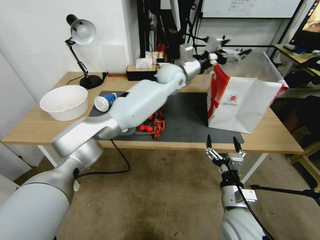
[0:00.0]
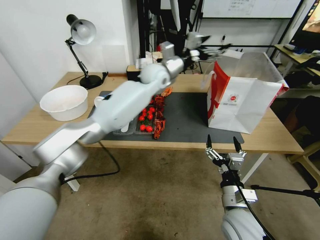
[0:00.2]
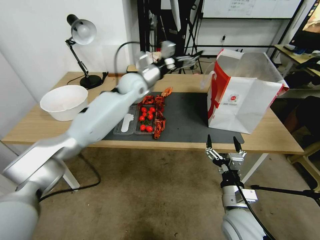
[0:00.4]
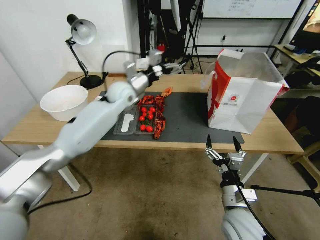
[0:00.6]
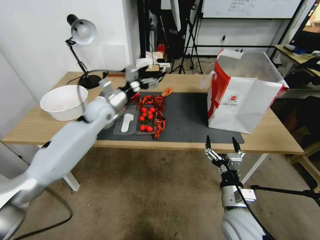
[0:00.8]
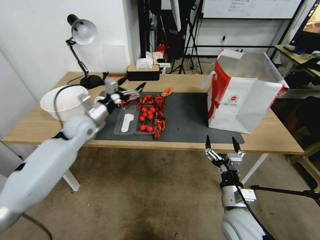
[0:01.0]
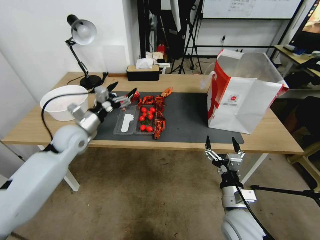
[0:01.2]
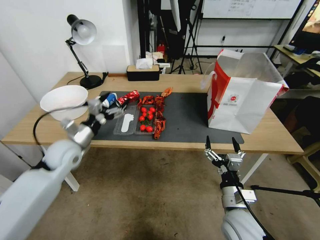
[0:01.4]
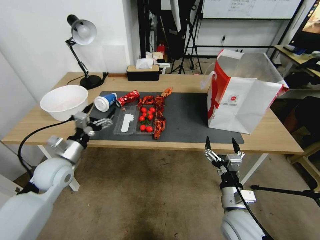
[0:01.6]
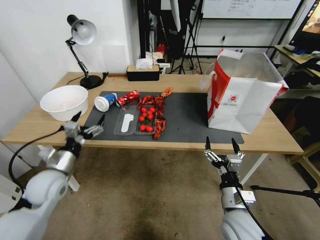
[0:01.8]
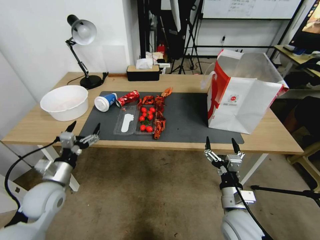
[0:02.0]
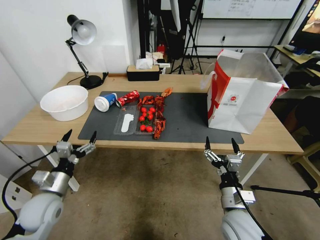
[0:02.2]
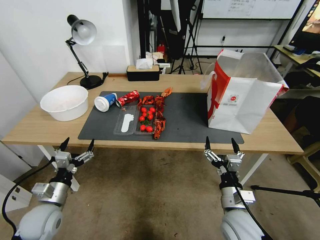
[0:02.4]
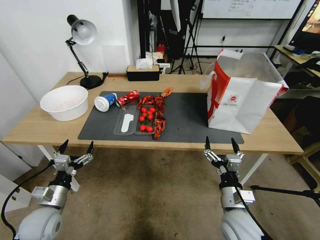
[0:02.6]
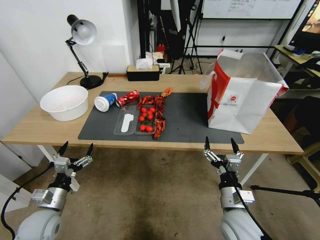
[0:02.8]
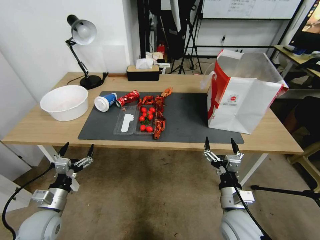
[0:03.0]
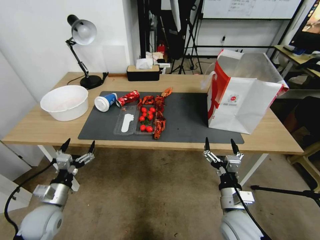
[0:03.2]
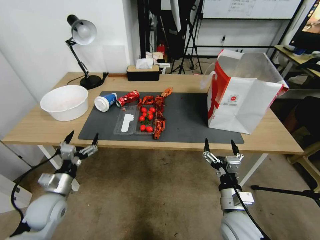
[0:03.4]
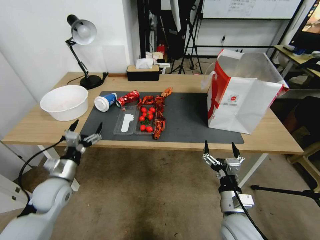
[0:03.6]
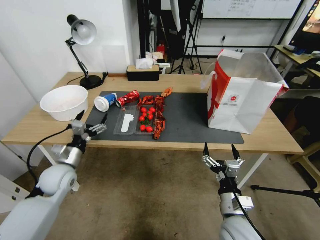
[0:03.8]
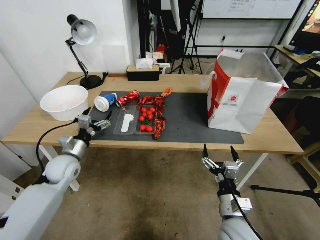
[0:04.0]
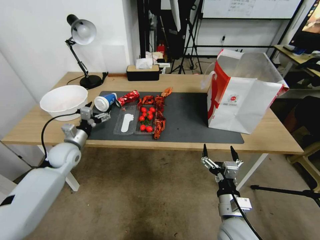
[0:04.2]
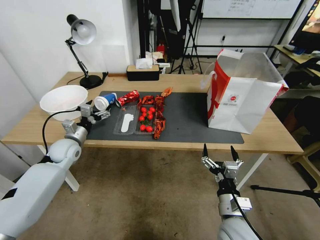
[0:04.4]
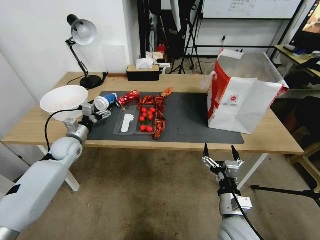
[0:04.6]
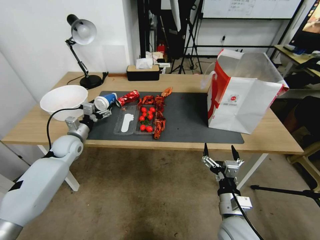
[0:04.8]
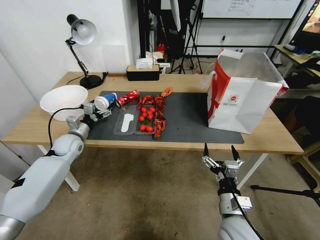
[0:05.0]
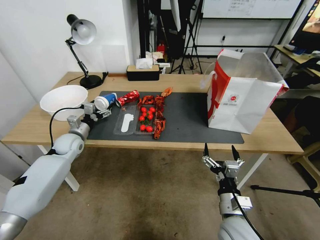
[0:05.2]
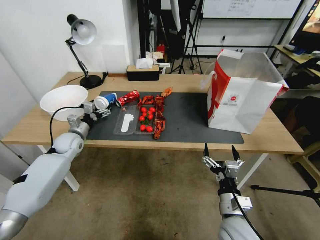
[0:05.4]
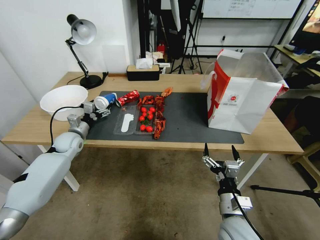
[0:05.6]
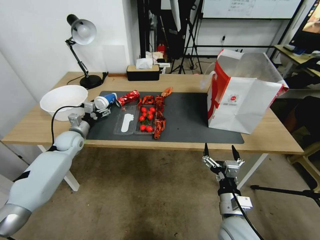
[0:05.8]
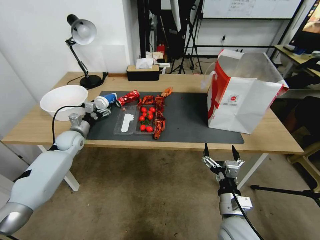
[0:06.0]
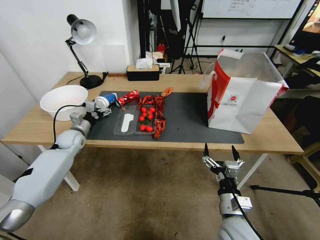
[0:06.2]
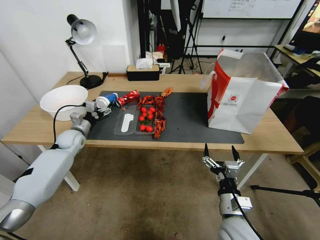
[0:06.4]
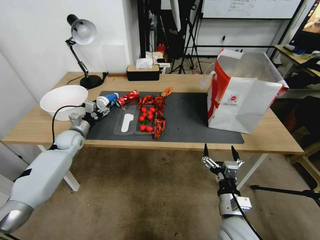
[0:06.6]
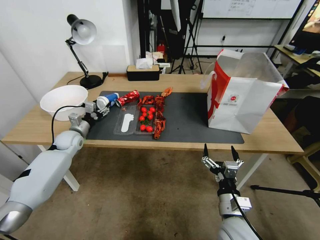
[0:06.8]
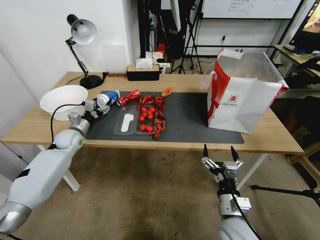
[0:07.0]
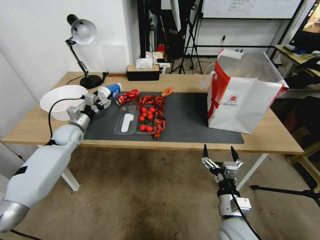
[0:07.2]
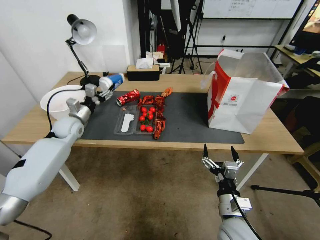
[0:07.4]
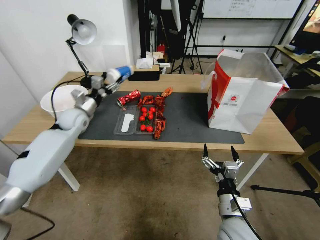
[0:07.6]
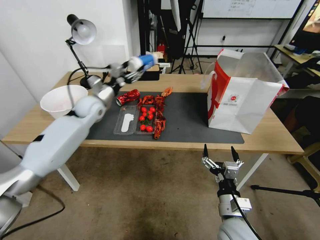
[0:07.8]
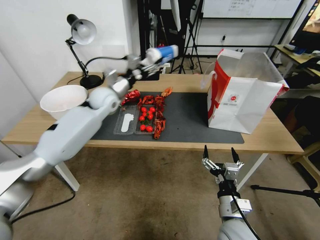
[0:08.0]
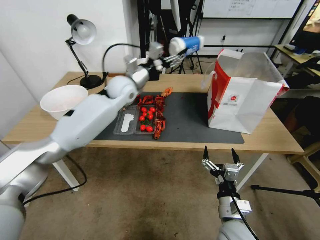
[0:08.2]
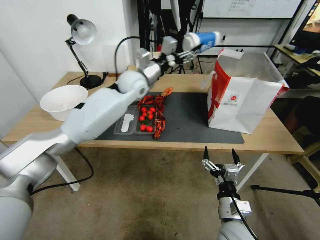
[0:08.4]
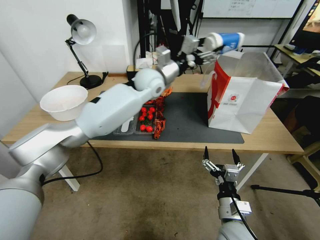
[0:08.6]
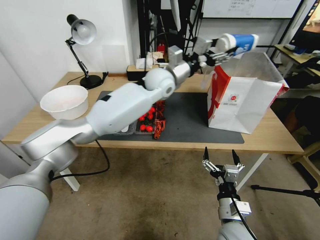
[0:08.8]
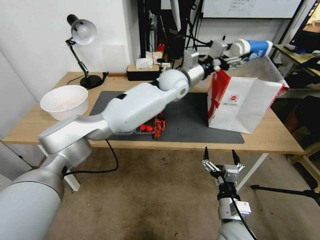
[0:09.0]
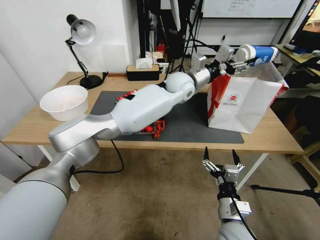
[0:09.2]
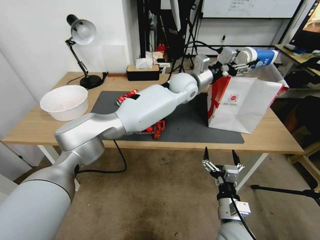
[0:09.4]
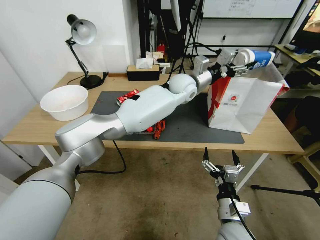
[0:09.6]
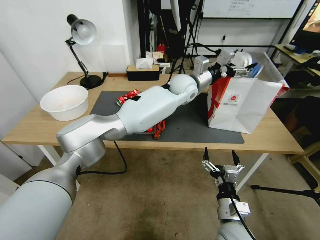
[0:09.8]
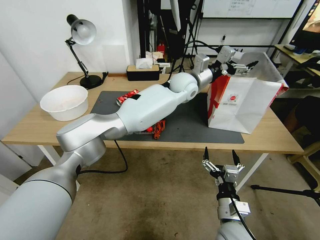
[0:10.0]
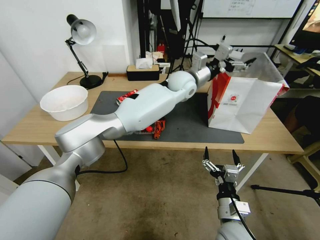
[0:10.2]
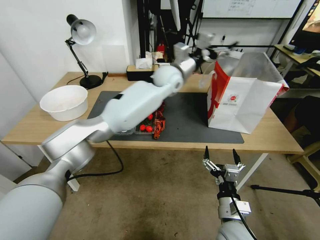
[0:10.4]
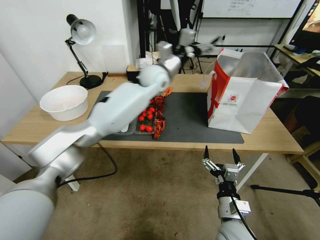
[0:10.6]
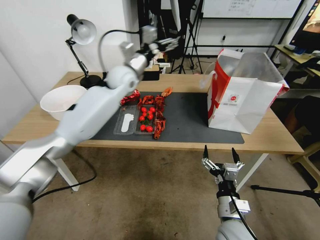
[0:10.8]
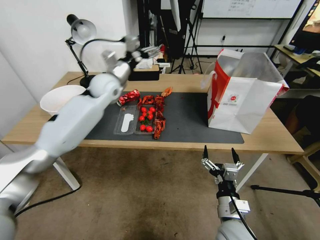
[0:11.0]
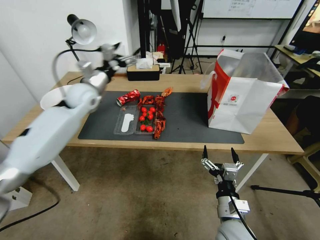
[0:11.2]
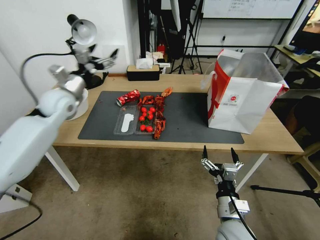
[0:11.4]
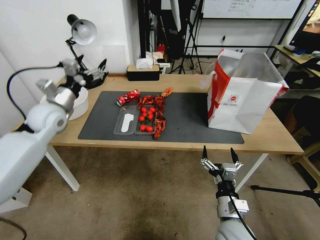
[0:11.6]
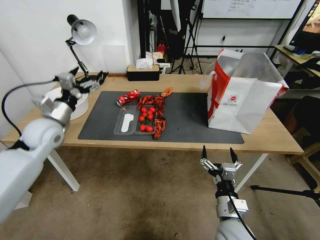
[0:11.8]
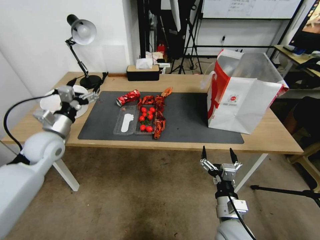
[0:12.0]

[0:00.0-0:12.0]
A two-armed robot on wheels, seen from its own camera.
0:00.0 to 0:01.6: The left gripper shifts about 50 cm to the left, backward and downward.
0:01.6 to 0:03.0: The left gripper moves backward and downward, about 15 cm.
0:03.0 to 0:04.4: The left gripper moves forward, approximately 20 cm.
0:04.4 to 0:06.0: The left gripper heads forward, covering roughly 5 cm.
0:06.0 to 0:07.6: The left gripper moves upward, approximately 5 cm, and closes its fingers.
0:07.6 to 0:09.0: The left gripper travels to the right and upward by roughly 40 cm.
0:09.0 to 0:10.4: The left gripper opens its fingers.
0:10.4 to 0:12.0: The left gripper heads to the left and backward, covering roughly 50 cm.

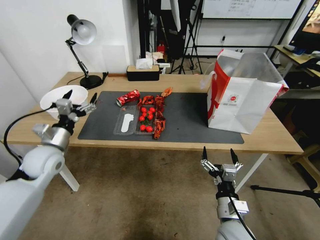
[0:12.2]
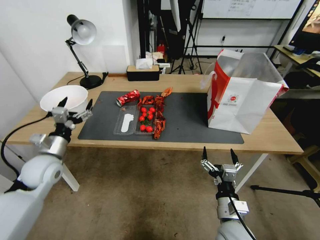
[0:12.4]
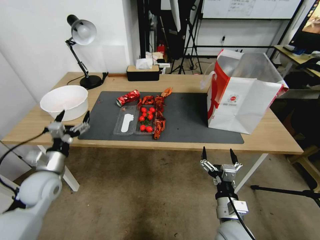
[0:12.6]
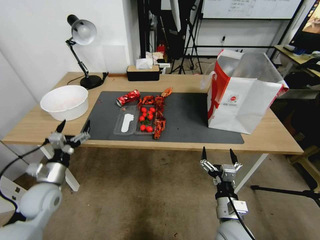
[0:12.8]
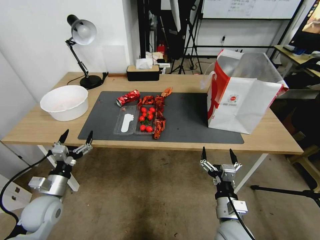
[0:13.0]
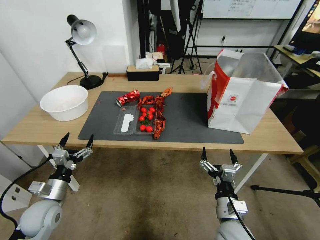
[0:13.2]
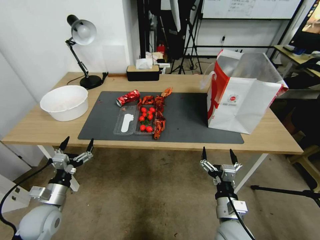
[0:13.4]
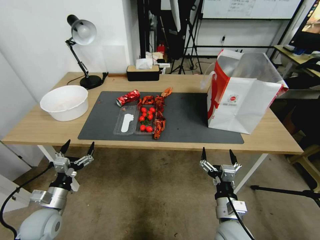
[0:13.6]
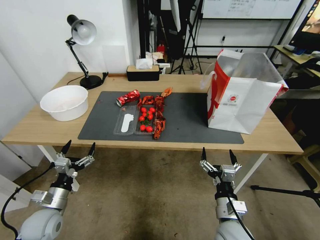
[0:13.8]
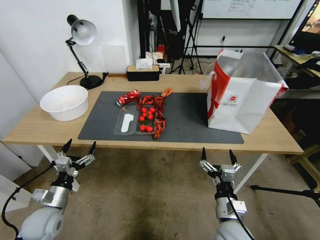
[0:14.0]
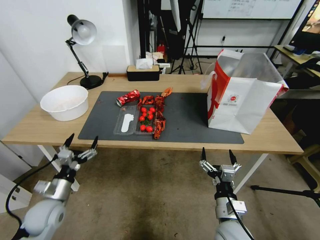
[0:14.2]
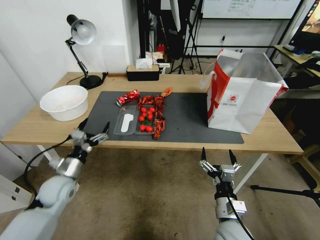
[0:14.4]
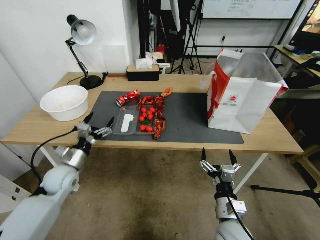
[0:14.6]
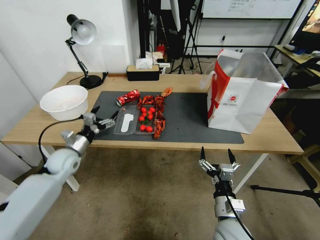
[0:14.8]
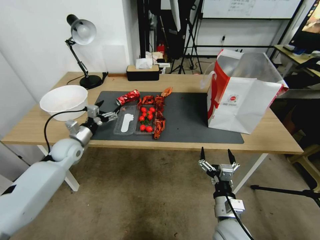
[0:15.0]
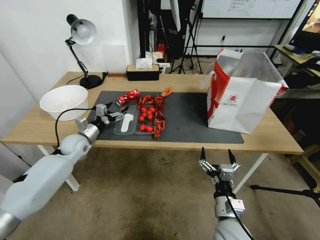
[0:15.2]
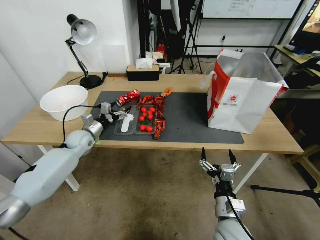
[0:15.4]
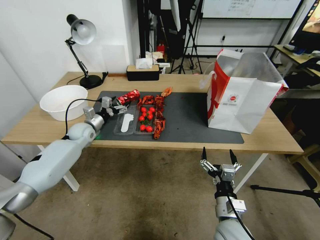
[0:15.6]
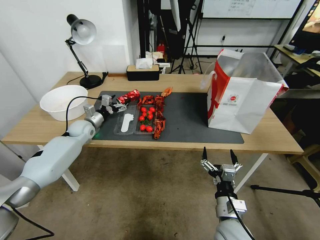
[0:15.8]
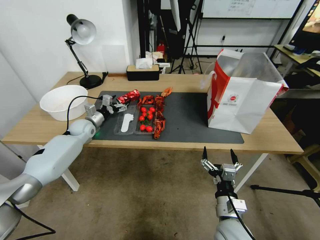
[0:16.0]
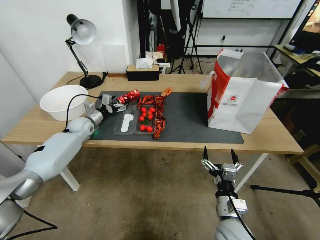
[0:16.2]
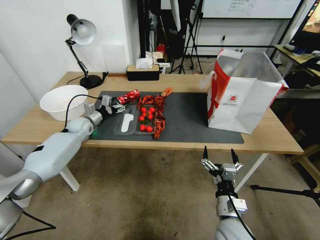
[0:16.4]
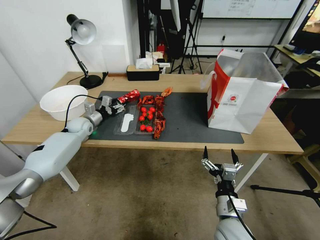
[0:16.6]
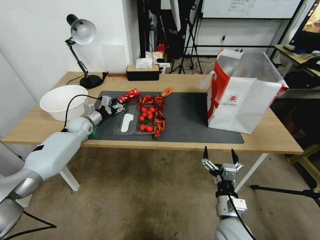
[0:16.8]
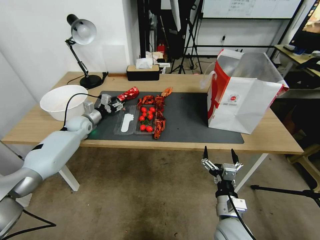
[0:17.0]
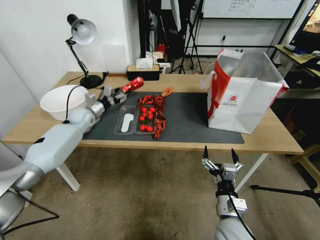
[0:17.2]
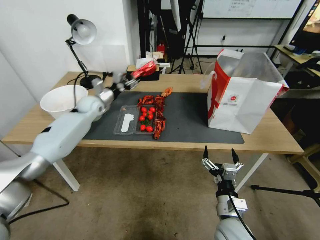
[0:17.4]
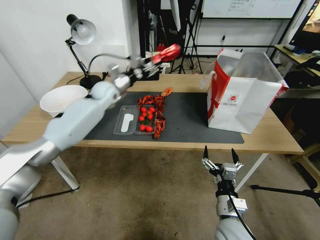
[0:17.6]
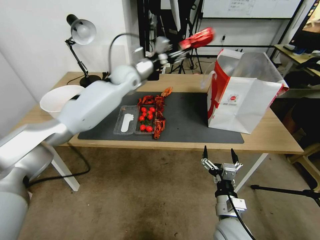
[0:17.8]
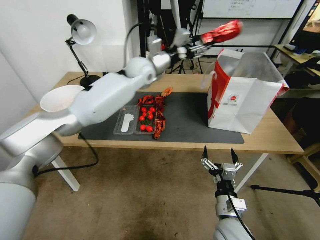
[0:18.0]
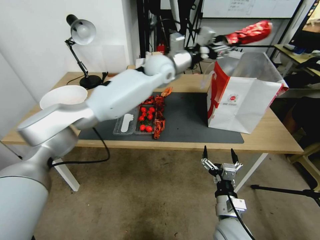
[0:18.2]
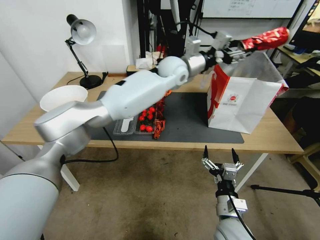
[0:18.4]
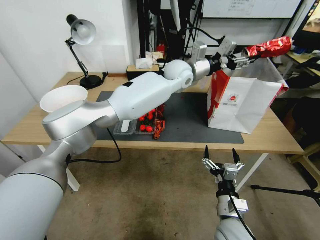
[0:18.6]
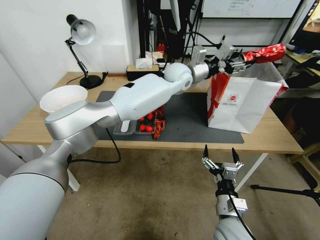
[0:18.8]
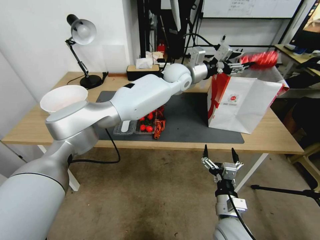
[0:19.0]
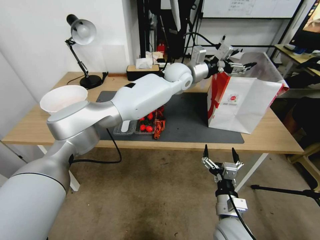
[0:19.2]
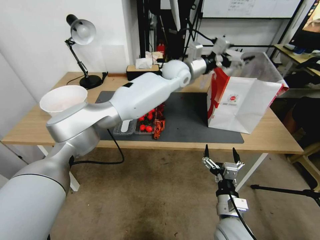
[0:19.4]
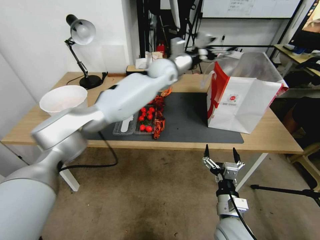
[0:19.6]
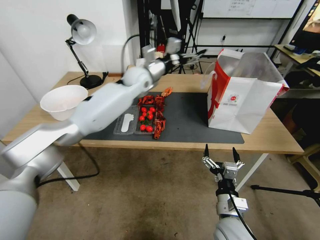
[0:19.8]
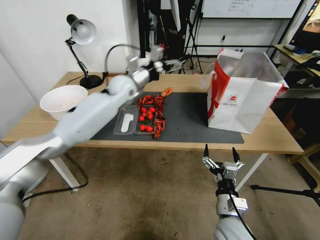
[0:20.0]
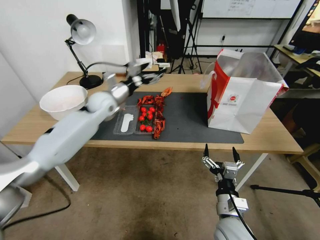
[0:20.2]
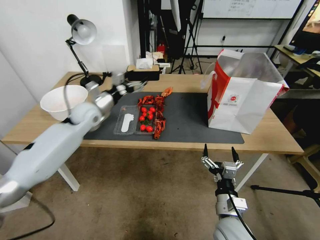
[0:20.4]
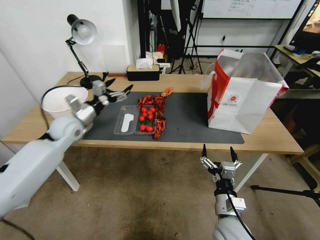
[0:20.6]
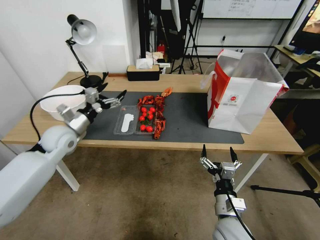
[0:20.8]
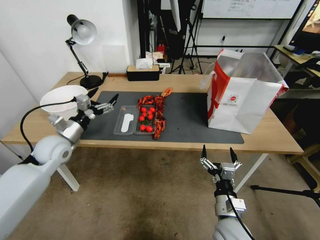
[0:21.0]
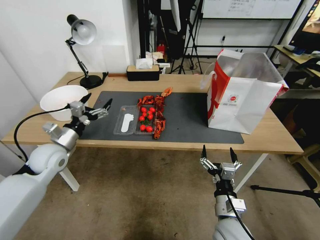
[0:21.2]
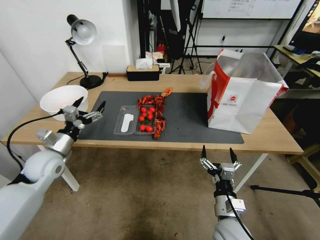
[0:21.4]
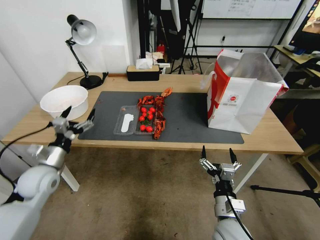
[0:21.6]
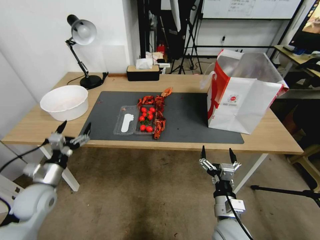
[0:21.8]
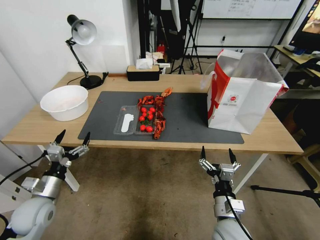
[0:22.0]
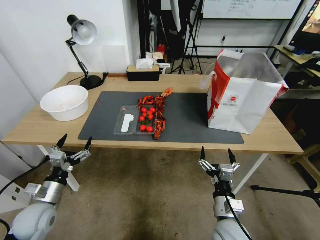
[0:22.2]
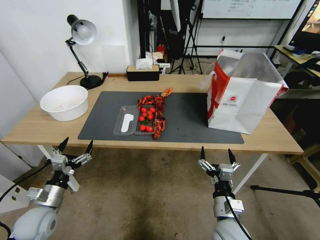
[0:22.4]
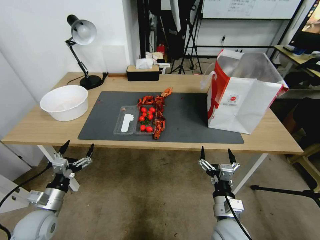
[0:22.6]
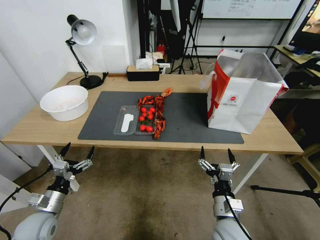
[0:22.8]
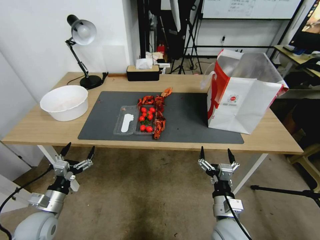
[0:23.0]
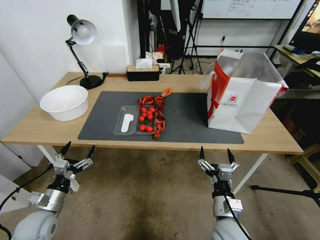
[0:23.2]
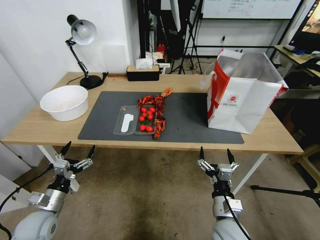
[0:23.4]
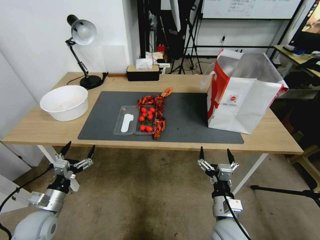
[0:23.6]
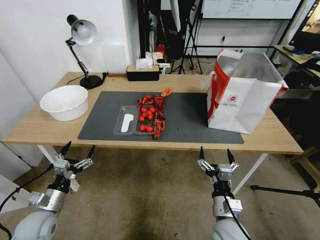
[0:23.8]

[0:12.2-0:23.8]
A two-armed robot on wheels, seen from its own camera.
0:12.2 to 0:13.6: The left gripper goes roughly 20 cm downward and backward.
0:13.6 to 0:15.0: The left gripper travels forward by about 20 cm.
0:15.0 to 0:16.6: The left gripper goes some 15 cm forward, and closes up.
0:16.6 to 0:18.0: The left gripper heads to the right and upward, covering some 40 cm.
0:18.0 to 0:19.4: The left gripper shifts roughly 10 cm to the right, and opens up.
0:19.4 to 0:21.0: The left gripper travels to the left and backward by some 40 cm.
0:21.0 to 0:22.4: The left gripper goes roughly 25 cm backward and downward.
0:22.4 to 0:23.8: The grippers move only a little.
